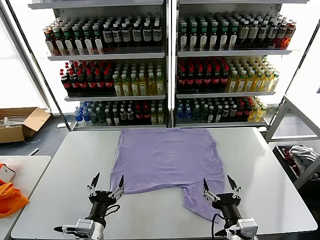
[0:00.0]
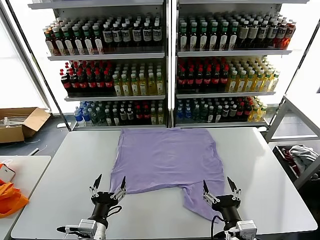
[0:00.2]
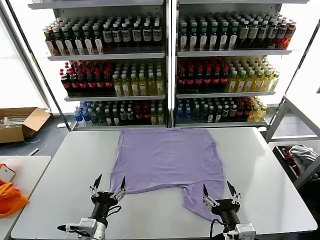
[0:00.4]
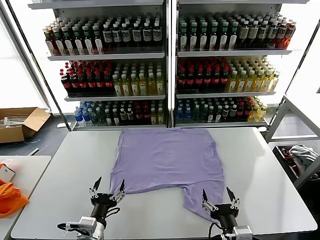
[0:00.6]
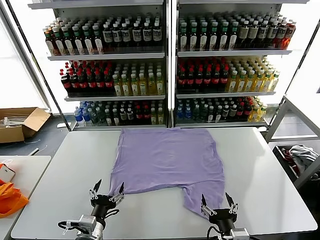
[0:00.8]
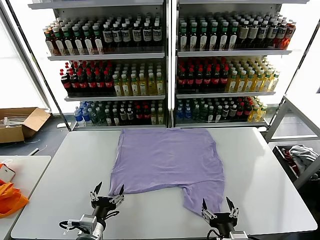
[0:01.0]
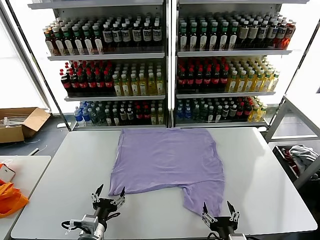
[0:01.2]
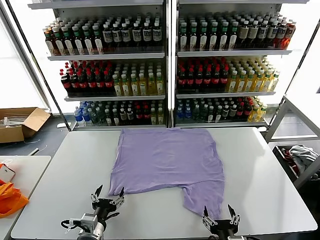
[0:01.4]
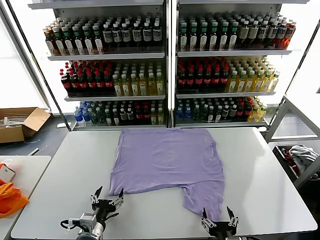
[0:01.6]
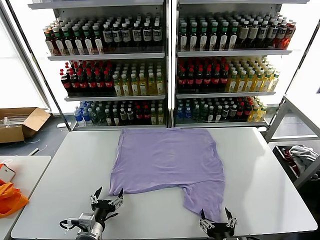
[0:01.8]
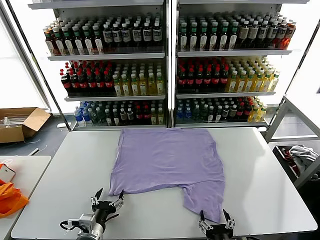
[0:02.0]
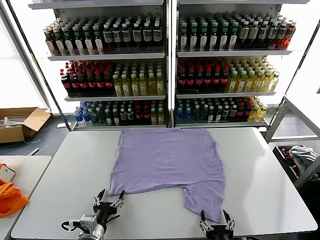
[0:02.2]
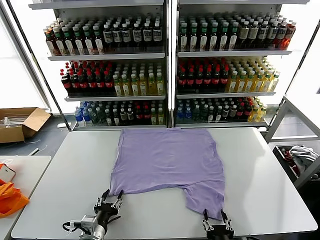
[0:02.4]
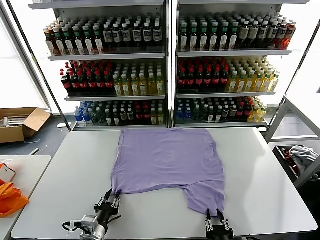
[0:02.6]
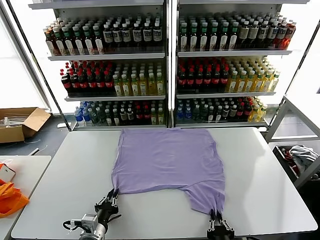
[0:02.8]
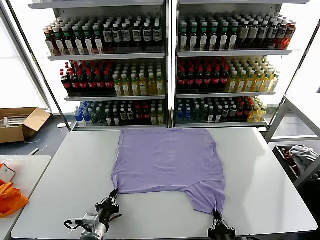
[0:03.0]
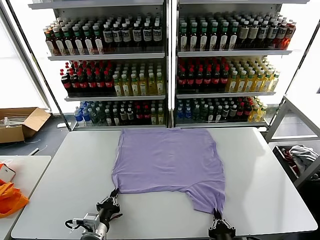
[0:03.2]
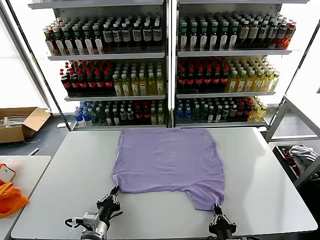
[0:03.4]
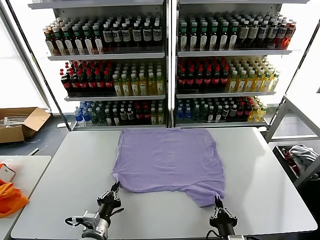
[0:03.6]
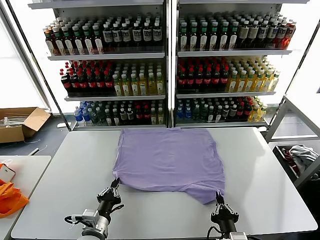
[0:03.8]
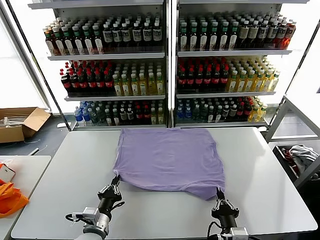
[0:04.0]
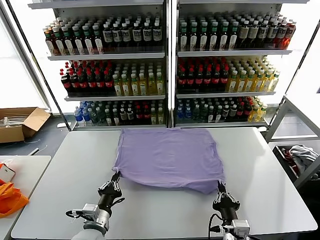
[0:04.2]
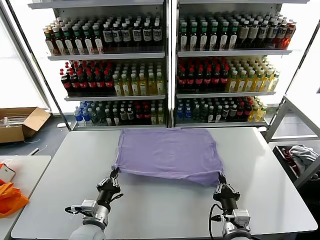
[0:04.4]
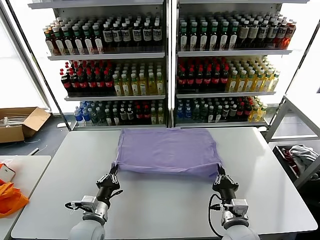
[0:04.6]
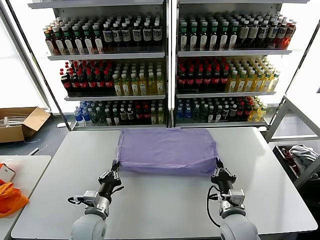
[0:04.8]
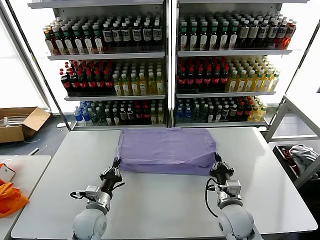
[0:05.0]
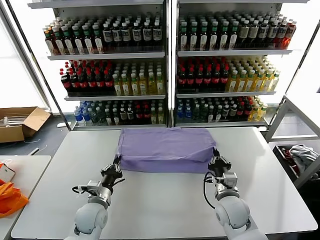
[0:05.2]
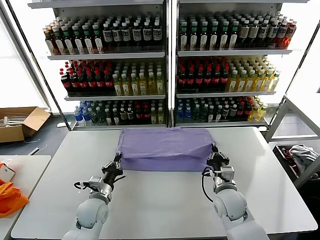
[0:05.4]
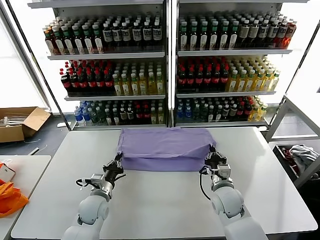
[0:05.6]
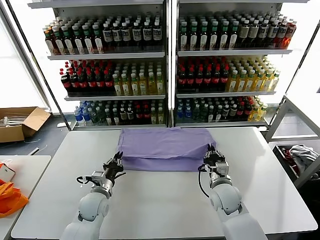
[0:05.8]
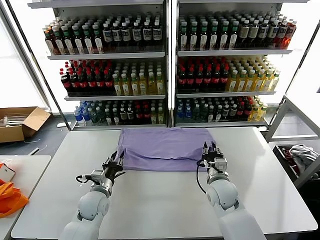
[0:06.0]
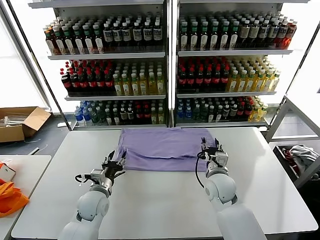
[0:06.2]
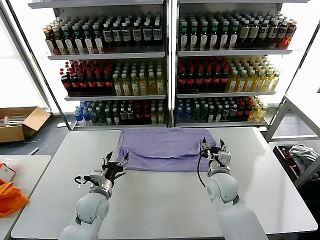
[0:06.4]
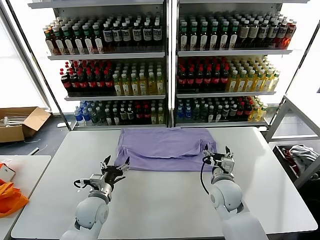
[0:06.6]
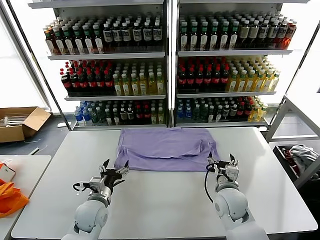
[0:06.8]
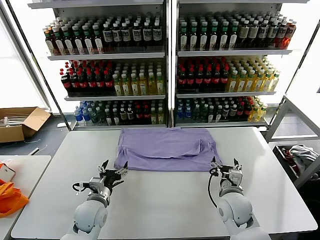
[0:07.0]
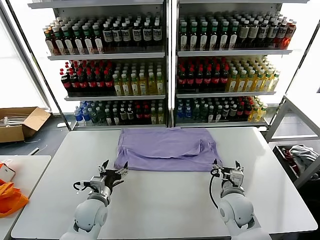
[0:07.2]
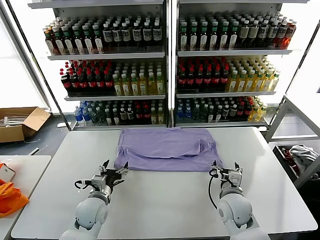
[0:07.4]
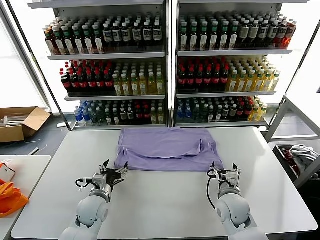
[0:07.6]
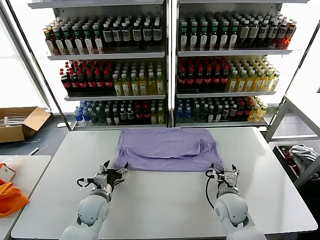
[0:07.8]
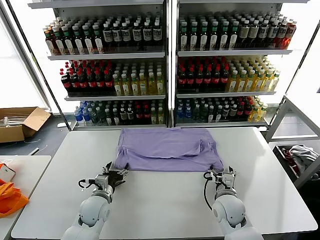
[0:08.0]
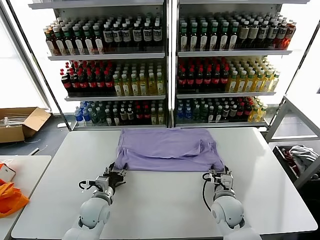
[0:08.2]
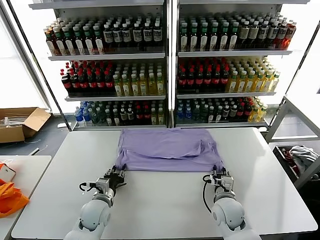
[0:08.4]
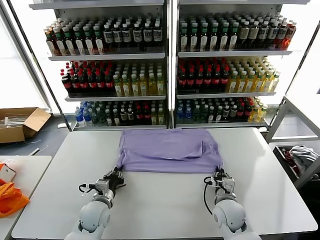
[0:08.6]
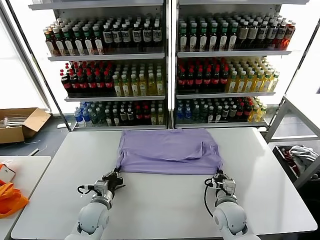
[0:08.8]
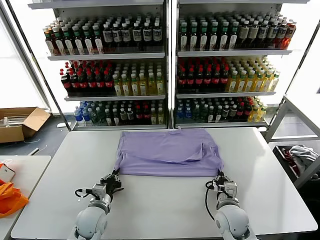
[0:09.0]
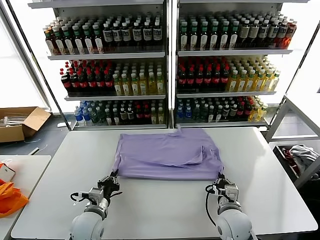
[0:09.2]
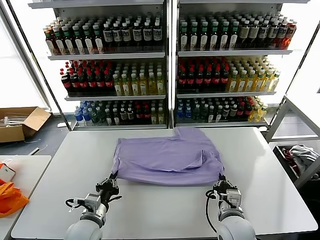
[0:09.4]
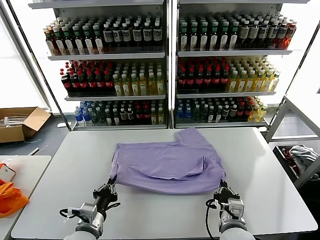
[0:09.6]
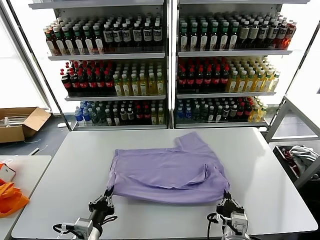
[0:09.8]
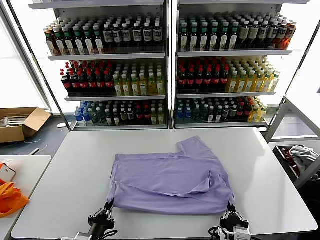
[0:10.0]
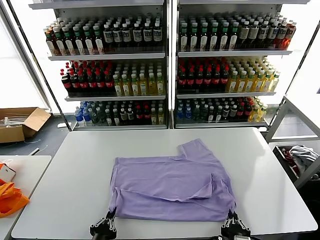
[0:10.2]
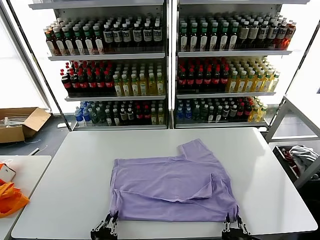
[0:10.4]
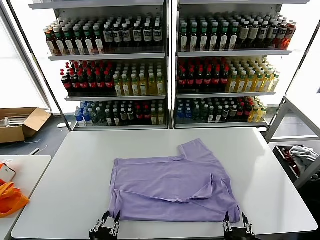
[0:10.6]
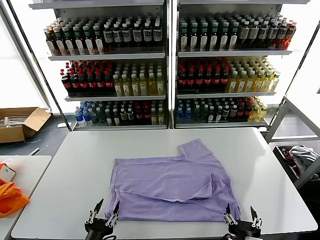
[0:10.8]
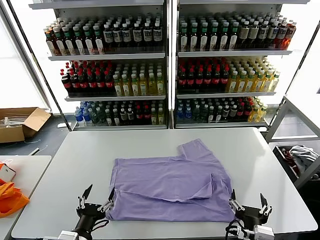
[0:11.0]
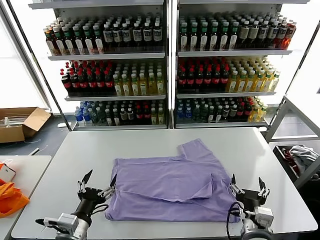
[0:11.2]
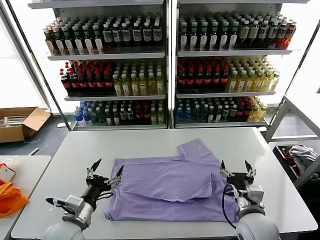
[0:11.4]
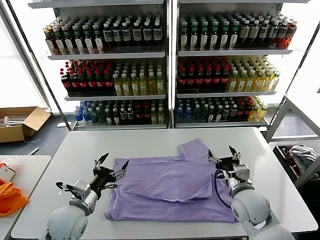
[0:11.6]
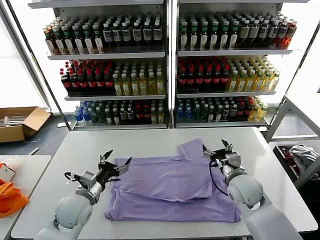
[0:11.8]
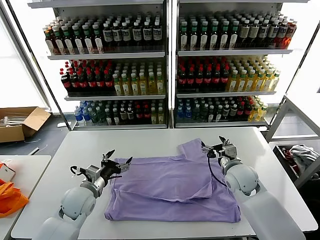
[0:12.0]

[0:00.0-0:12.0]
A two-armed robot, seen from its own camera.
Task of the whole recording: fold and organize the clothes.
Step, 0:00.0 to 0:03.2: use both grippers simultaneously to clamp the lower edge of the clothing fabric.
Step, 0:03.6 to 0:06.2: use both grippers to drag the lower edge of the fabric forward and fold it over the upper edge.
Step, 0:06.4 to 0:10.6: Drag the clothes downward with both gripper.
0:01.6 to 0:03.0: The left gripper closes up. The right gripper closes.
0:03.0 to 0:04.4: The right gripper moves forward, approximately 10 cm. The left gripper moves forward, roughly 5 cm.
0:04.4 to 0:06.0: The right gripper shifts roughly 15 cm forward, and opens its fingers. The left gripper shifts some 10 cm forward, and opens up.
0:06.0 to 0:07.6: The left gripper opens its fingers. Meanwhile the right gripper goes roughly 5 cm backward, and opens its fingers.
0:07.6 to 0:09.0: The left gripper goes some 5 cm backward, and closes up, while the right gripper closes its fingers.
0:09.0 to 0:10.4: Both grippers move backward, roughly 20 cm. The right gripper opens, while the left gripper opens its fingers.
0:10.4 to 0:12.0: The grippers both shift forward by about 30 cm. The right gripper opens its fingers. The left gripper opens.

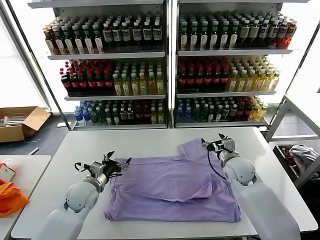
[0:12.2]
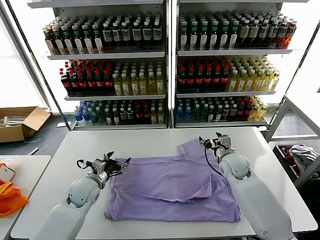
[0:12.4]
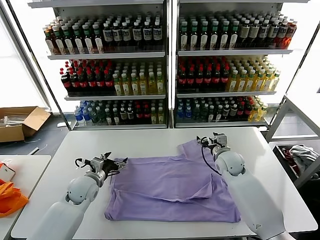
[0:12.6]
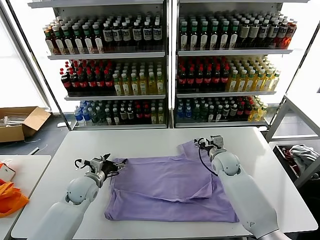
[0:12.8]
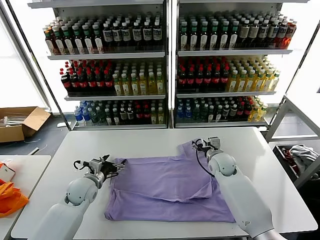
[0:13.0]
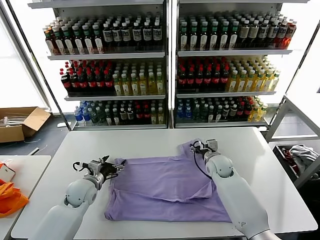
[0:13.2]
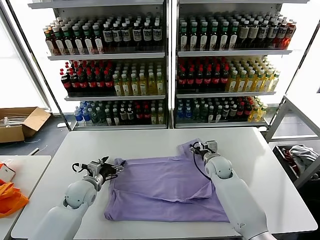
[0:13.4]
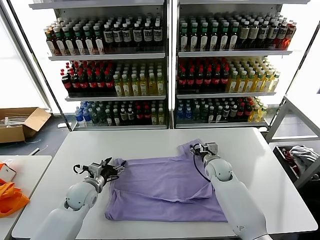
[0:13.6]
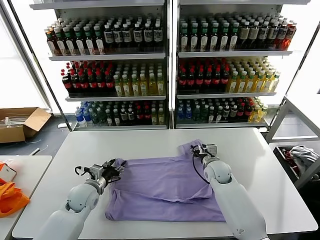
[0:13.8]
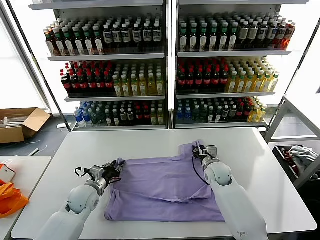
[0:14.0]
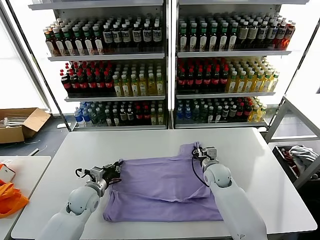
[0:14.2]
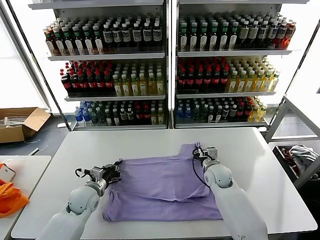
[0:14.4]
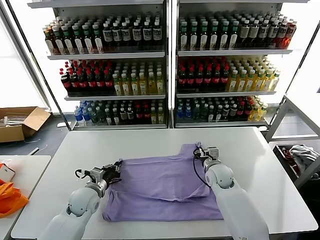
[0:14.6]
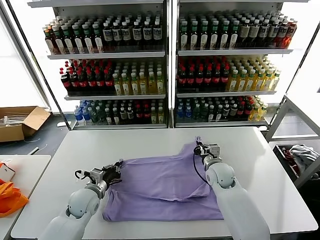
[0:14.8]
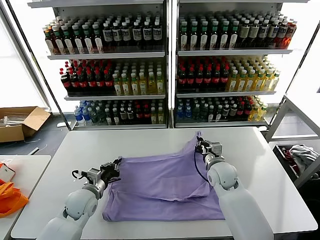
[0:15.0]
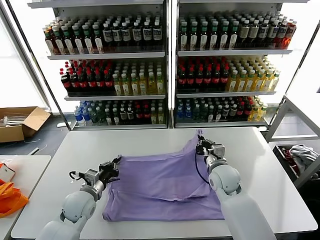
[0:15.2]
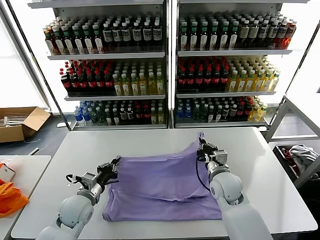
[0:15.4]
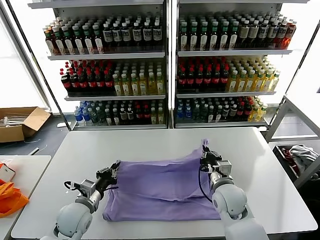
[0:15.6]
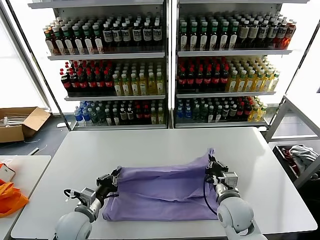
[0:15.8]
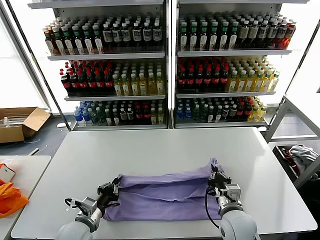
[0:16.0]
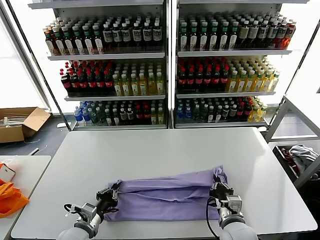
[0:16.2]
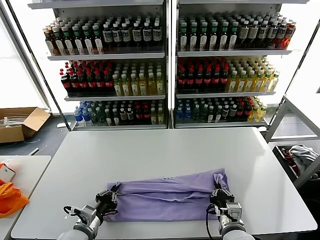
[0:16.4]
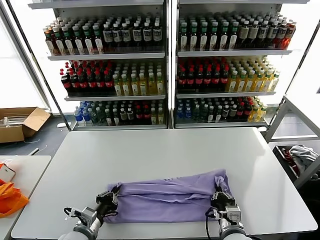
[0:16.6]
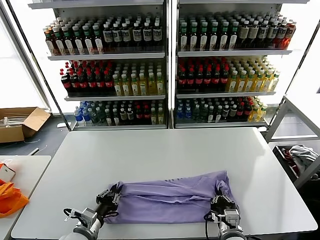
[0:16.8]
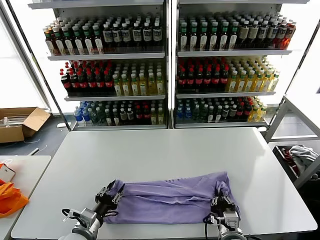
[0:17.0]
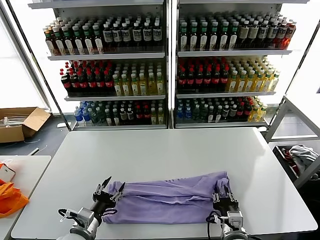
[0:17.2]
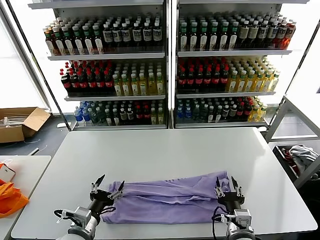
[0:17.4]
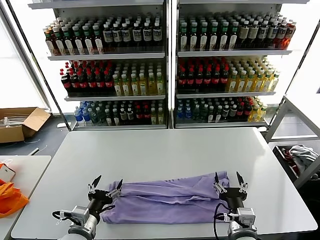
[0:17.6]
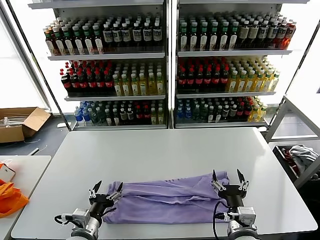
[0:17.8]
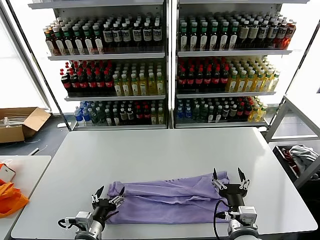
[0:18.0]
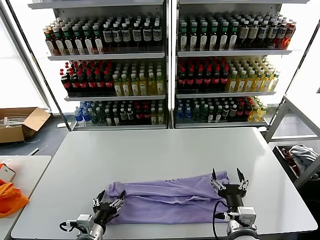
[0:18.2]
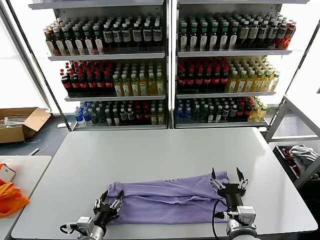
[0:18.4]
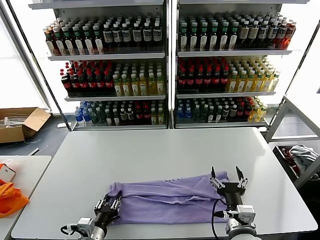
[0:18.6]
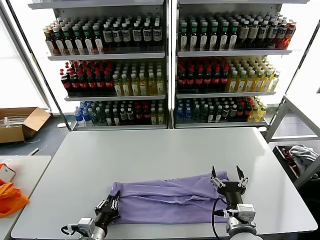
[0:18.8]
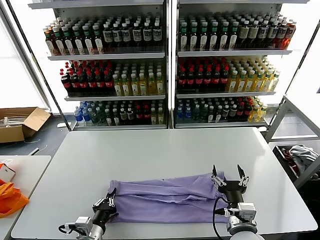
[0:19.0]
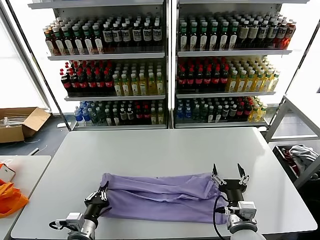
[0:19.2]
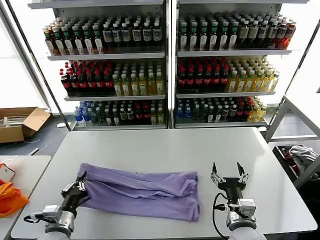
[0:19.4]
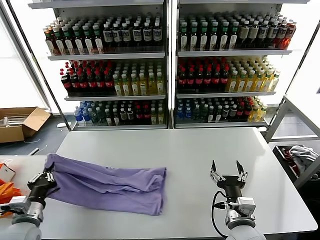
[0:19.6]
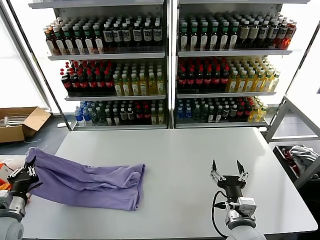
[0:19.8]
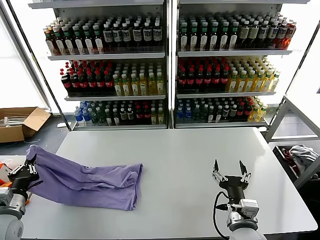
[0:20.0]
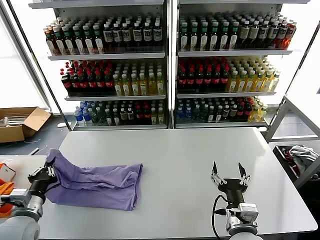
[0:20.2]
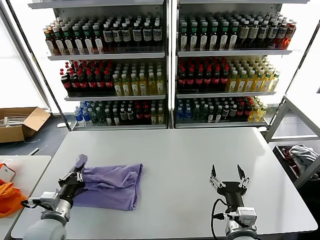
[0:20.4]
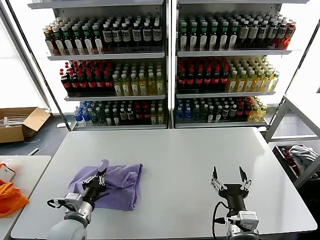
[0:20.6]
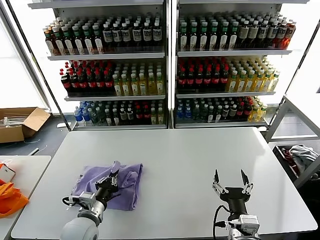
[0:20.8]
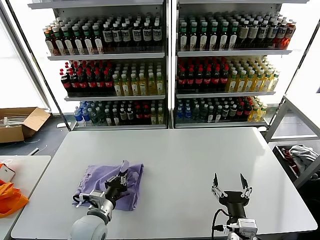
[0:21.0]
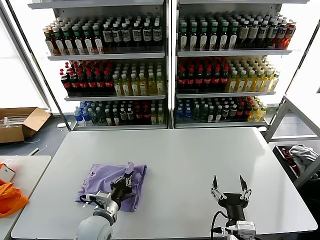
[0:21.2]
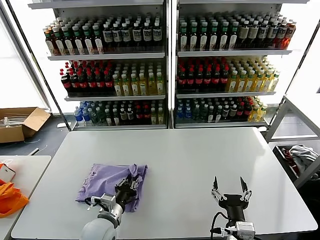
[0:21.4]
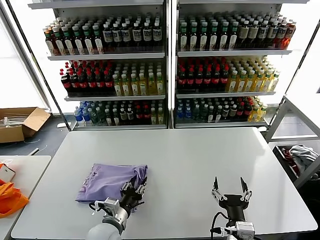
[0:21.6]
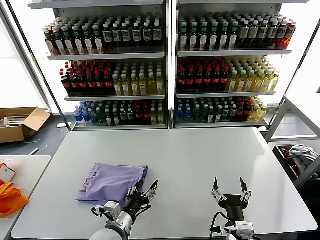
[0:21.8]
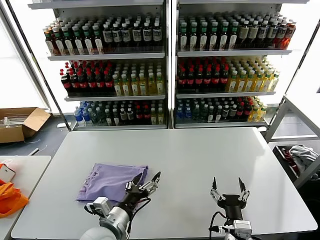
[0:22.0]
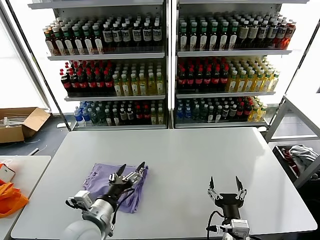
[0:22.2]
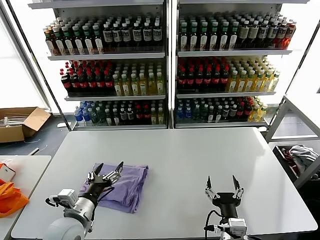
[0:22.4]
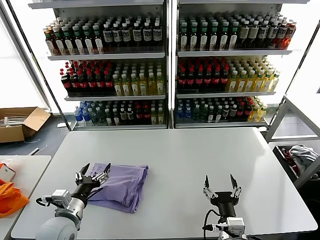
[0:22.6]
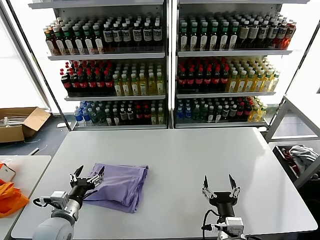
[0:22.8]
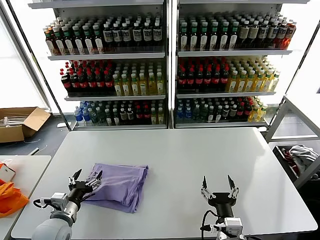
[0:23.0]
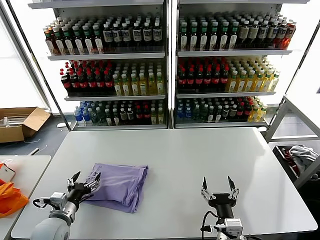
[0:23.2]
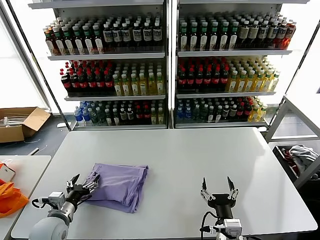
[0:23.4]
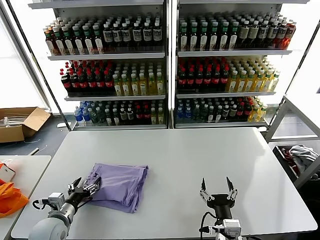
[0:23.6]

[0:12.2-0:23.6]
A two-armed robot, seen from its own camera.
Task of the whole recording: fold and organize the clothes.
Step, 0:12.2 to 0:14.6: use both grippers simultaneously to clamp the upper edge of the clothing fabric.
Step, 0:14.8 to 0:17.2: use both grippers to drag the upper edge of the fabric backward and fold it over the lower edge.
Step, 0:17.4 to 0:18.8: use the left gripper to clamp the left edge of the fabric.
Step, 0:19.0 to 0:21.8: use the left gripper to drag the left edge of the fabric to the left and folds it over the right edge.
0:12.2 to 0:13.6: The right gripper heads downward, covering roughly 5 cm.
0:13.6 to 0:15.0: The left gripper closes up. The right gripper is displaced upward and backward by approximately 10 cm, and closes its fingers.
0:15.0 to 0:16.4: The left gripper is displaced backward by approximately 10 cm. The right gripper is displaced backward by approximately 20 cm.
0:16.4 to 0:17.8: The right gripper moves upward, roughly 5 cm, and opens its fingers, while the left gripper opens up.
0:17.8 to 0:19.4: The left gripper is displaced to the left by approximately 10 cm, and closes up.
0:19.4 to 0:20.8: The left gripper goes approximately 10 cm to the right.
0:20.8 to 0:22.2: The left gripper heads upward, covering some 5 cm, and opens up.
0:22.2 to 0:23.6: The left gripper heads to the left and downward, covering about 15 cm.
